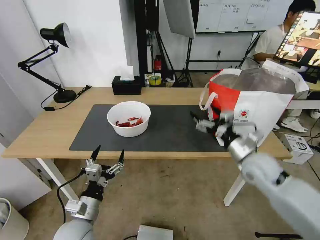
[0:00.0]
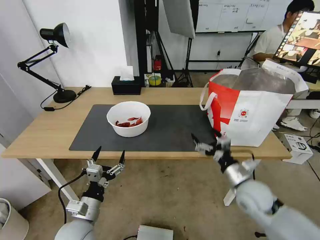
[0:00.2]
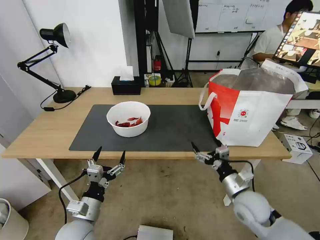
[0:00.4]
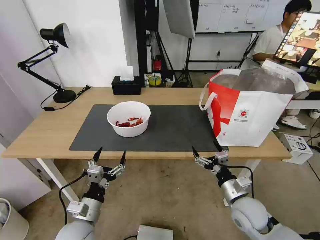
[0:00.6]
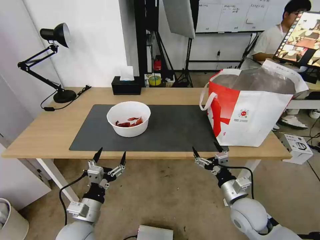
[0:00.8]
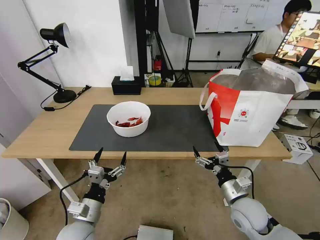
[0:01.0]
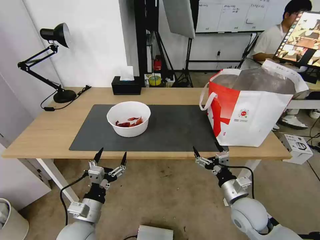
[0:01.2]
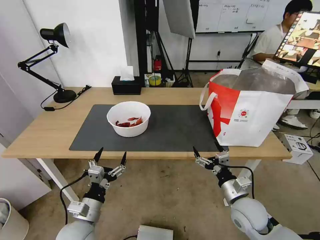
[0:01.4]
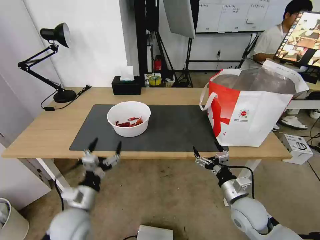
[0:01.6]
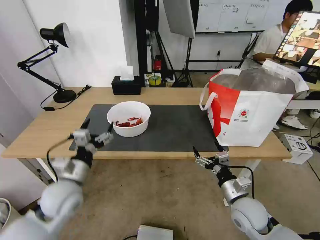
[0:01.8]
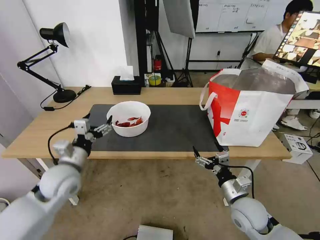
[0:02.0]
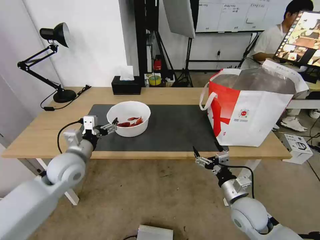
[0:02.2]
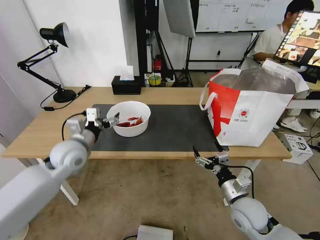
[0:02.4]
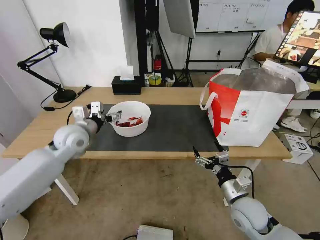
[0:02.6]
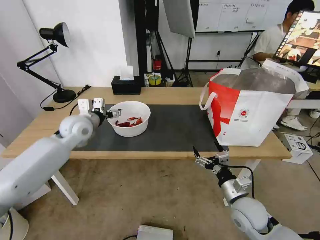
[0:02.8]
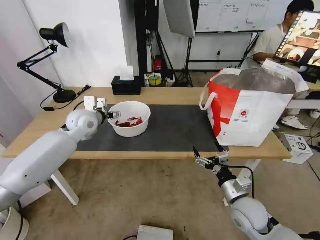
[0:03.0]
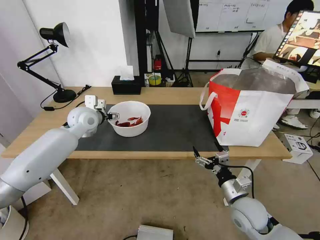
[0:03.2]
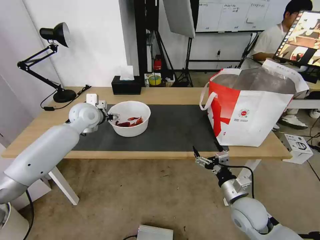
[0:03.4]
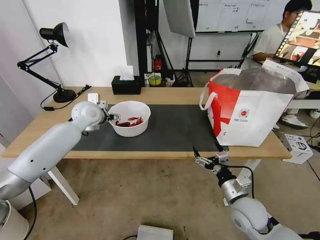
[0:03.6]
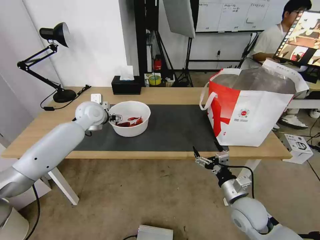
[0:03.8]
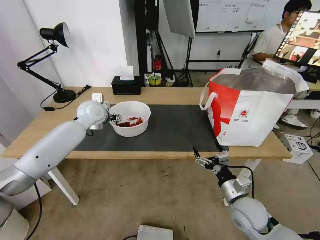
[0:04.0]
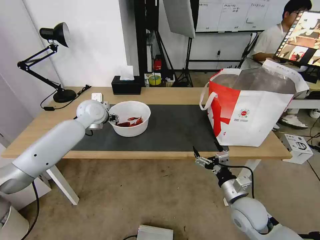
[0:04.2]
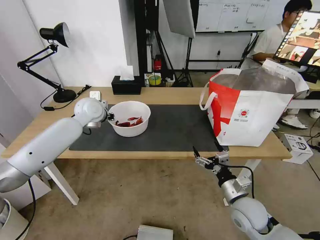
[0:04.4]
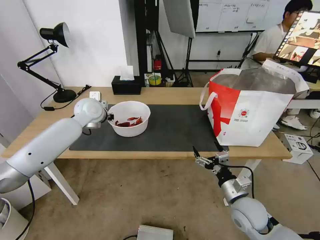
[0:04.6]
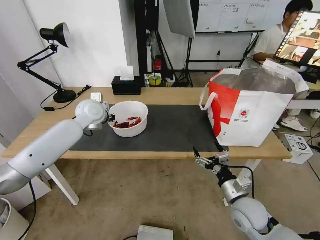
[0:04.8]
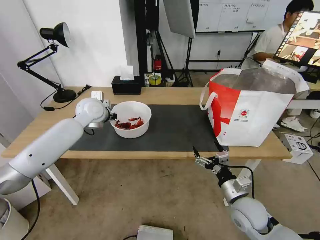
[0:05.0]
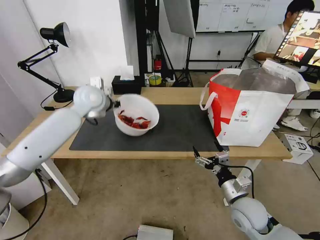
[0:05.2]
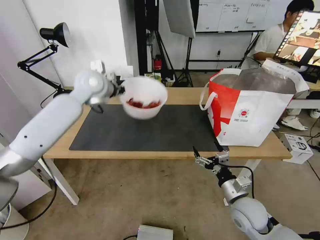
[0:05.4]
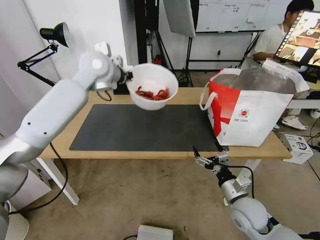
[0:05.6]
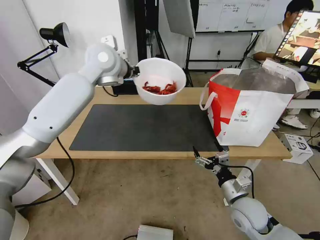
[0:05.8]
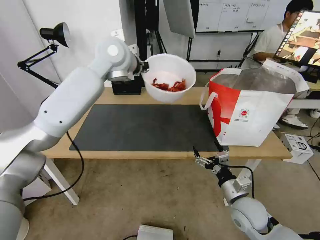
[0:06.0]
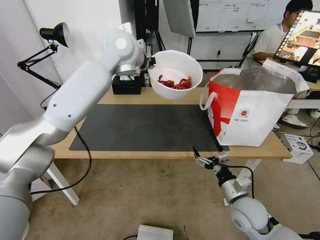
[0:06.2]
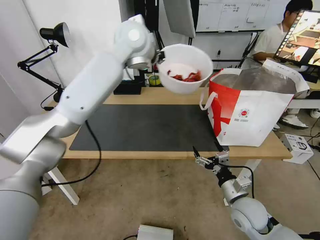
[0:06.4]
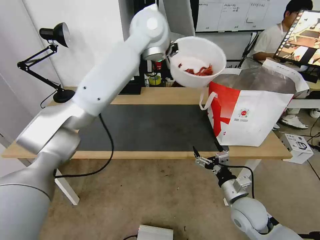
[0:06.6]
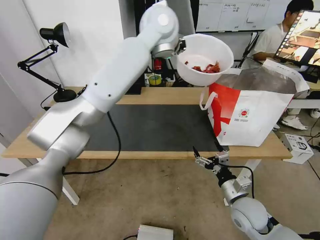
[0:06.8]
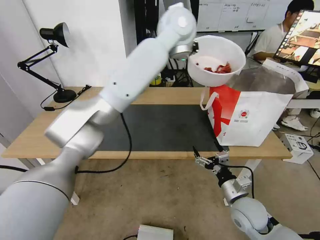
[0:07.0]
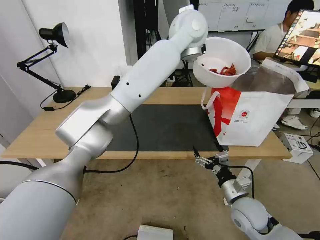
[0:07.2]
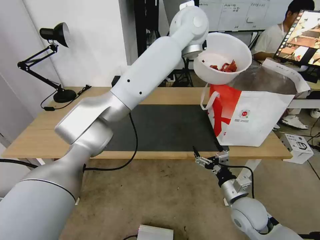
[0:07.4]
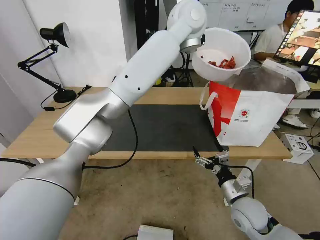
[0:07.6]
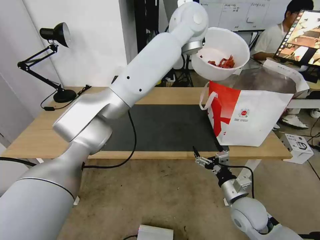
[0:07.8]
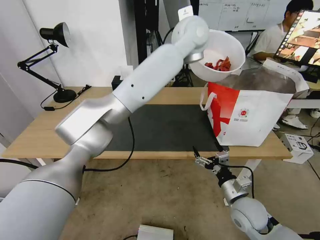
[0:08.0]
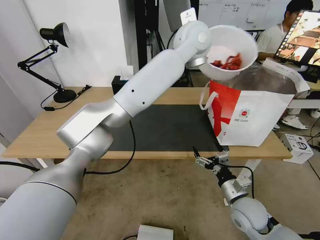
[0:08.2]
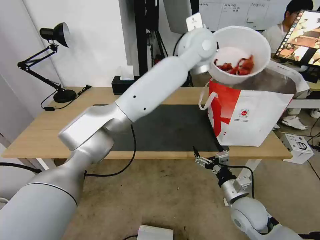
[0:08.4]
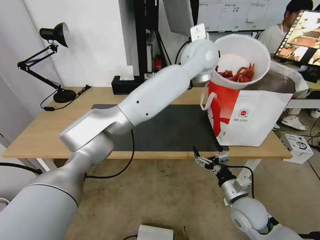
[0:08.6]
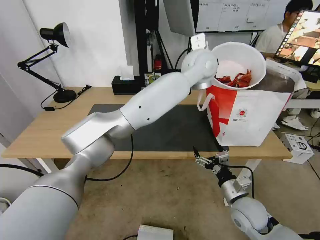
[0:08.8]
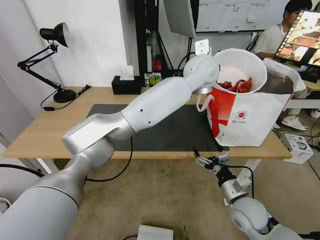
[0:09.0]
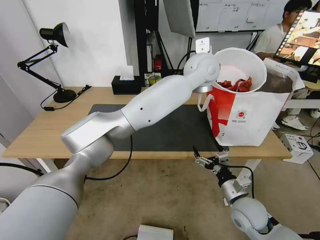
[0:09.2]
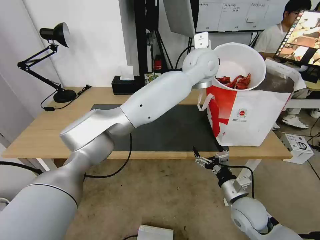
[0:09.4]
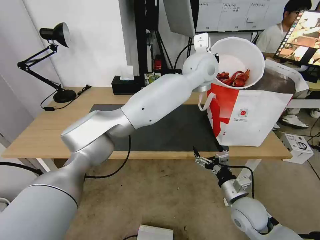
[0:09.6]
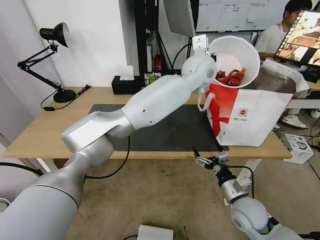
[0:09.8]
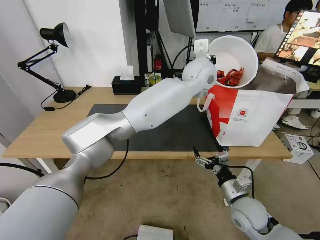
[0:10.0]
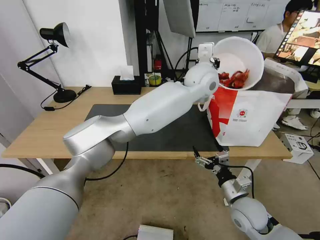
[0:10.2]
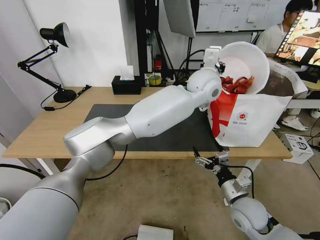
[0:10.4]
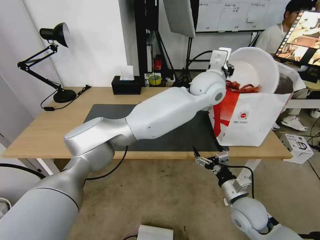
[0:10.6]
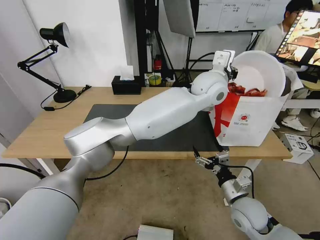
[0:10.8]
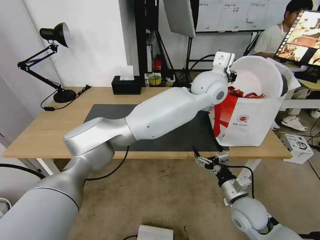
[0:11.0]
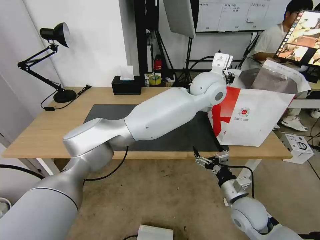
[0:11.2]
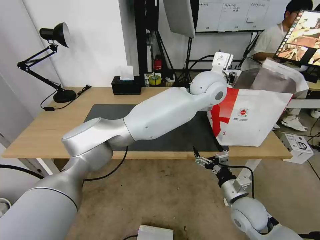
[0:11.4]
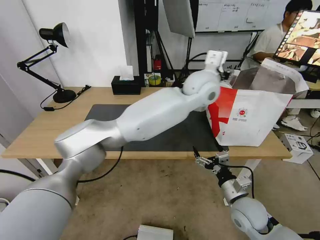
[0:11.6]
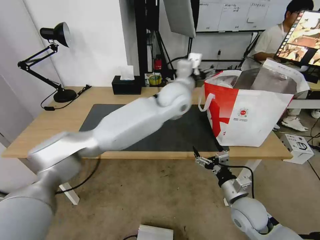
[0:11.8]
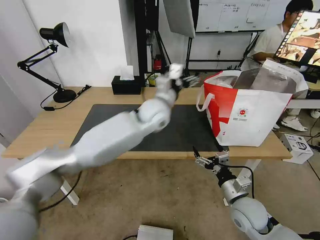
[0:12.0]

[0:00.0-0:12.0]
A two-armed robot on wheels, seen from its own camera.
Task of the whole recording: Pick up the trash from the table and place it into the takeout bag.
0:00.0 to 0:01.6: The right gripper is displaced downward and backward by approximately 15 cm.
0:01.6 to 0:03.0: The left gripper moves forward and upward, some 30 cm.
0:03.0 to 0:04.4: The left gripper closes its fingers.
0:04.4 to 0:06.0: The left gripper travels upward and to the right by about 20 cm, and closes.
0:06.0 to 0:07.6: The left gripper moves to the right, approximately 20 cm.
0:07.6 to 0:09.0: The left gripper shifts about 10 cm downward and to the right.
0:10.4 to 0:12.0: The left gripper moves to the left and downward, about 15 cm, and opens up.

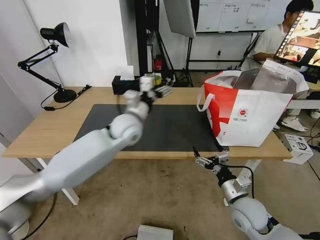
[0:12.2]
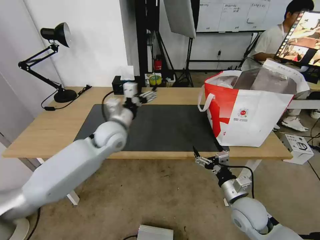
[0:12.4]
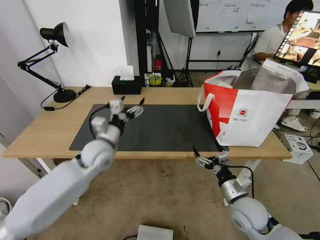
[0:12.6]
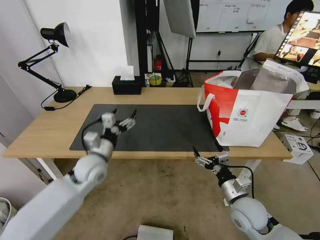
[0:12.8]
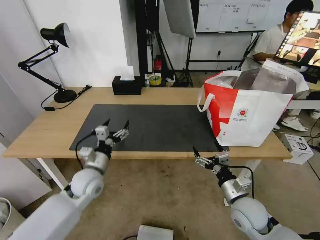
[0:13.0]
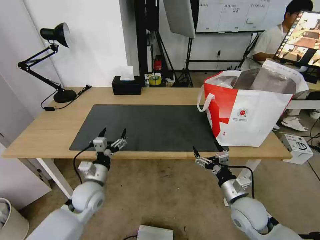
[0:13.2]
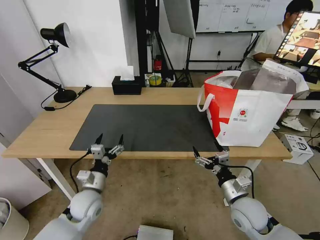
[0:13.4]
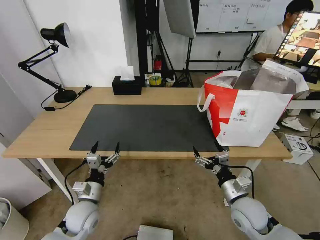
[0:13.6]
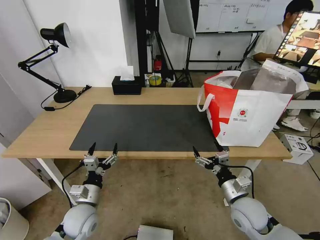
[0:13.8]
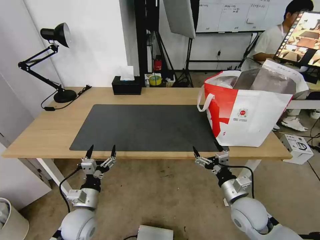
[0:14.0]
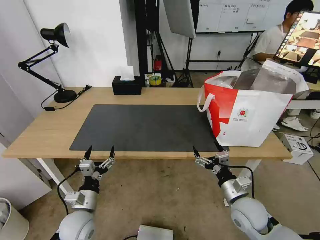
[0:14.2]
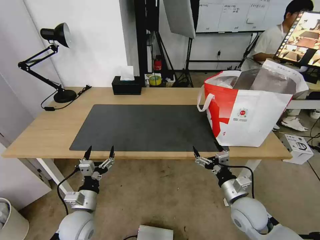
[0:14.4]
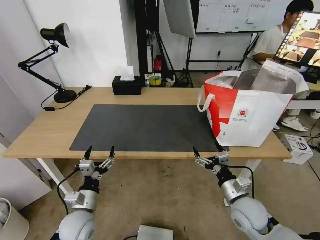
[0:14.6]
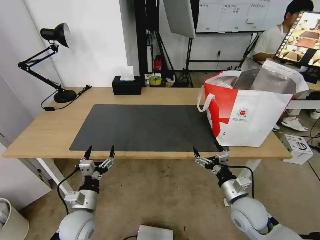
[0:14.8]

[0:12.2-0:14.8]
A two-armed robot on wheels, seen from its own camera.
Task of the whole recording: Pick up the trash from the table and place it into the takeout bag.
0:12.2 to 0:13.4: The left gripper shifts some 30 cm downward, backward and to the left.
0:13.4 to 0:14.8: The left gripper heads backward, covering some 5 cm.
